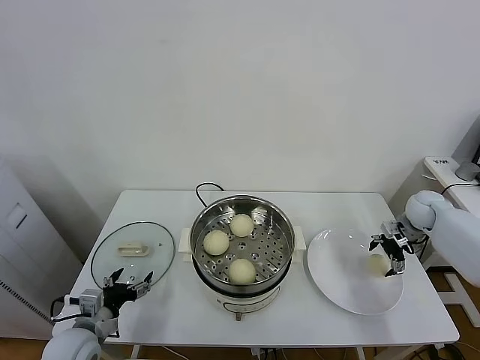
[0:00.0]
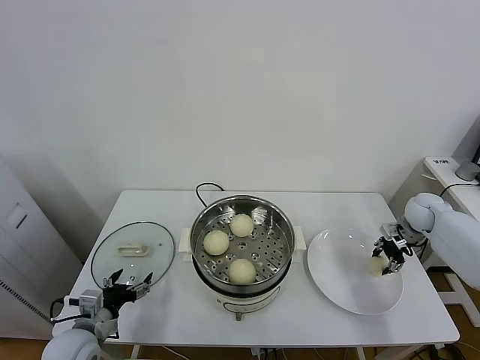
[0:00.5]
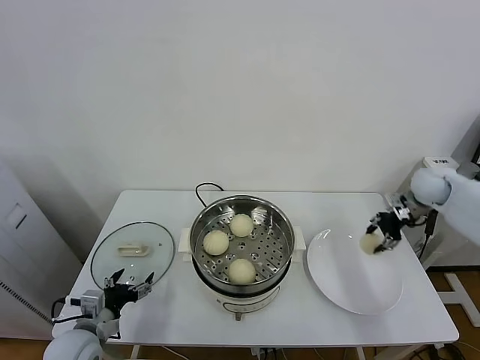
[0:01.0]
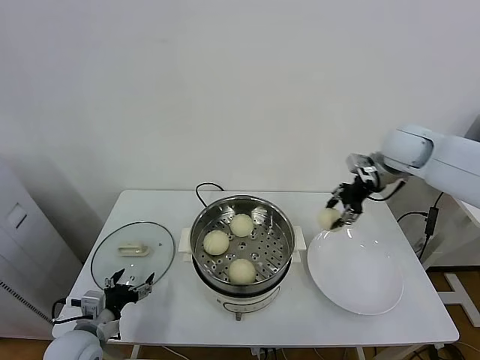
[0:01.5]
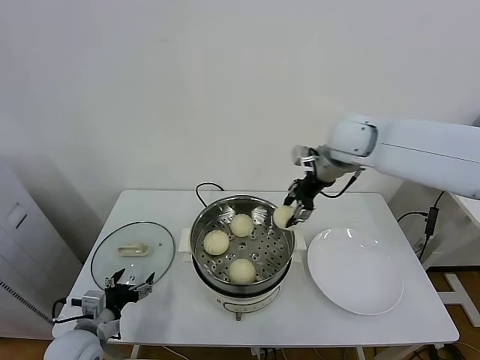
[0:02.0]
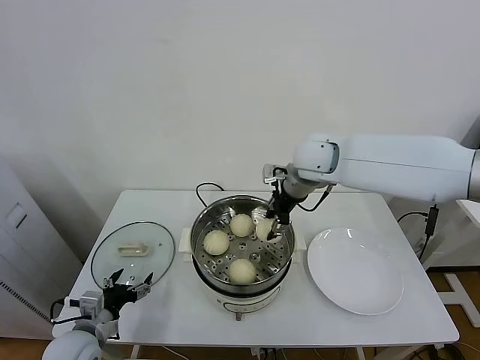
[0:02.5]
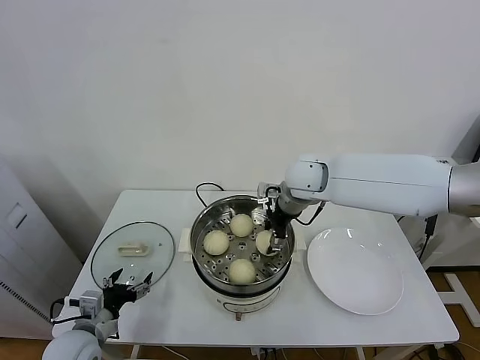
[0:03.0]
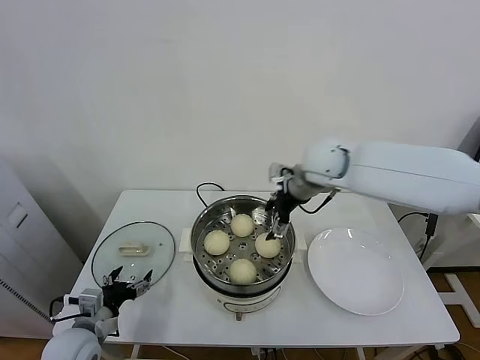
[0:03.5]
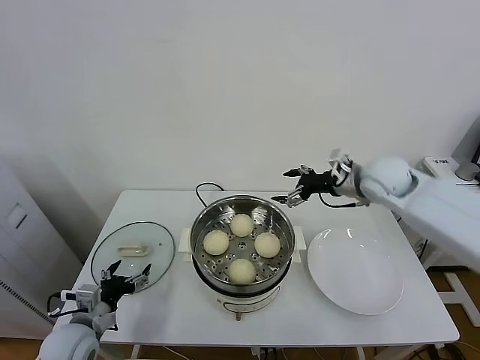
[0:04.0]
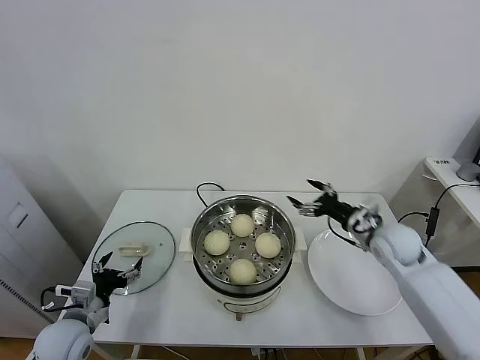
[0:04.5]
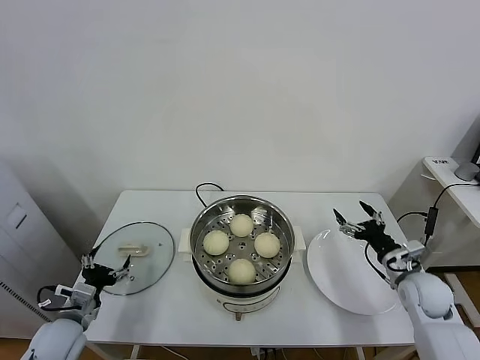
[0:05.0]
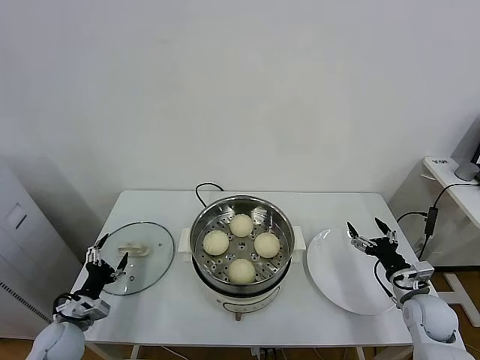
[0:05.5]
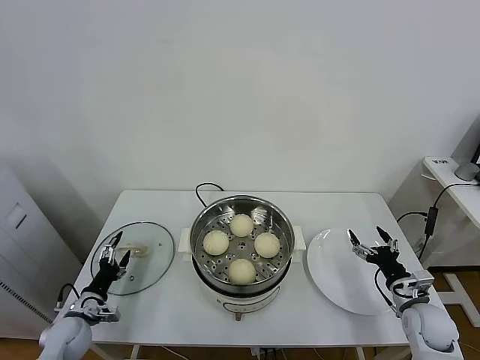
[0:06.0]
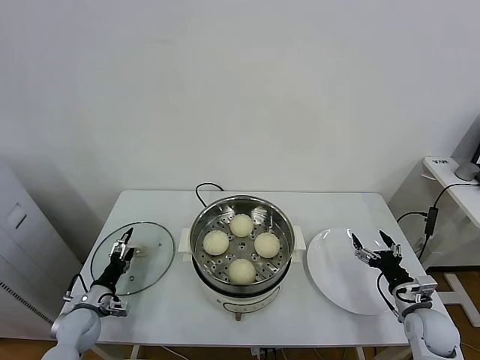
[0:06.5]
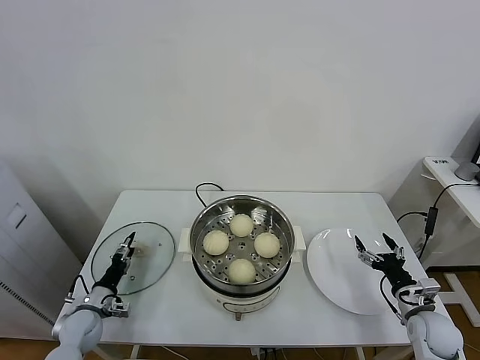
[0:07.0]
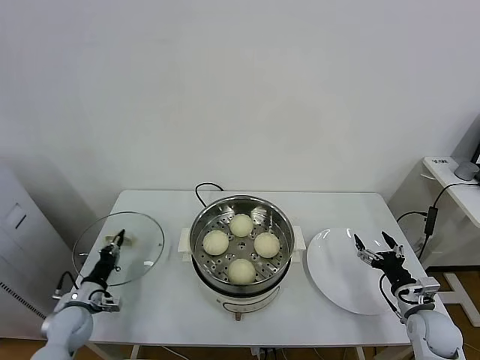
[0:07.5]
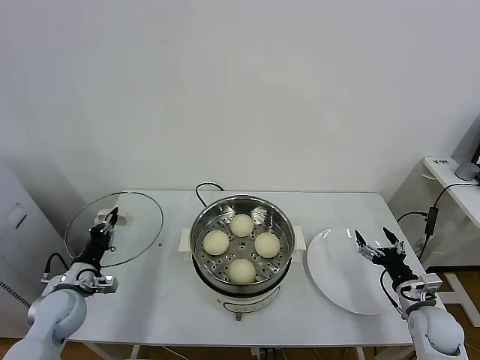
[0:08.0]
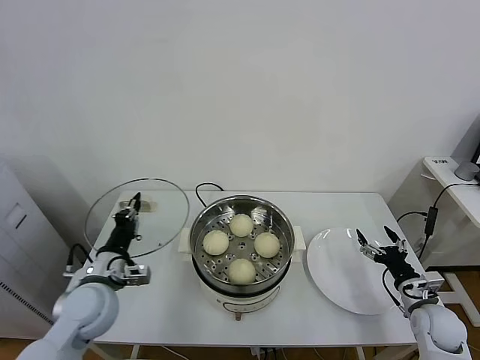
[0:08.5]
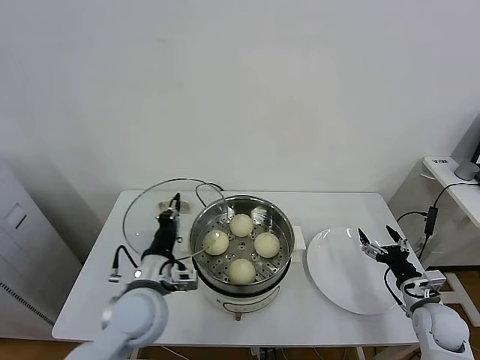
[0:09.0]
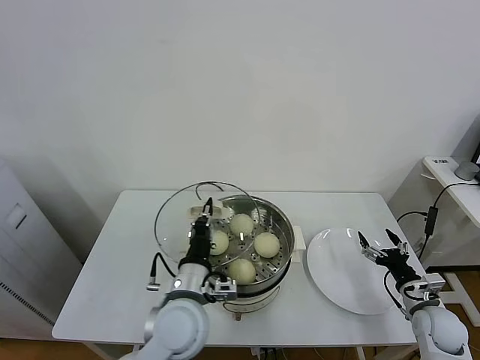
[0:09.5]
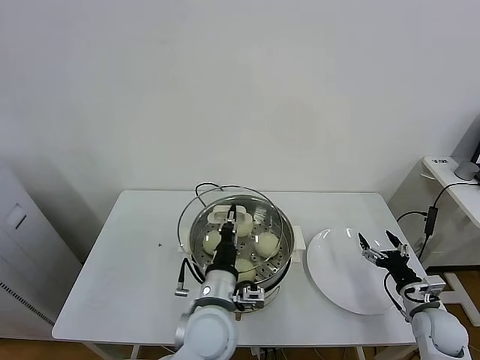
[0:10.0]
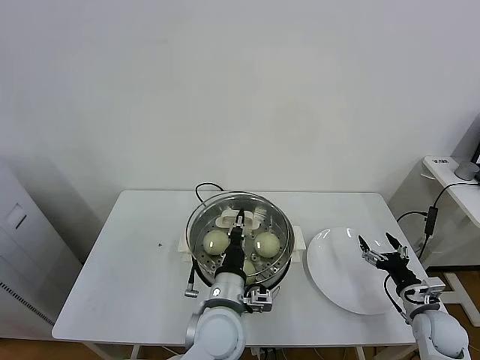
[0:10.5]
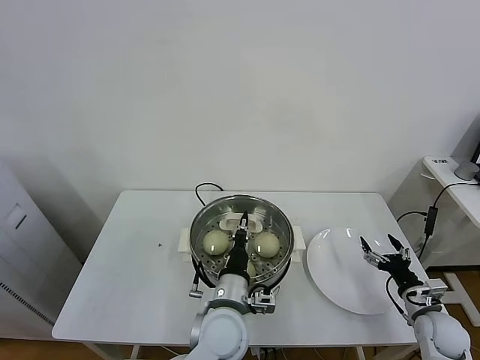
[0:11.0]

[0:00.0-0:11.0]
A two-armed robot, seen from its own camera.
Task of the whole recording: take steamed baozi put them in steamer.
Step, 0:00.5 to 0:03.0: Place the baozi on the steamer with right gripper.
Step, 0:03.5 to 0:07.5: Grasp the pot lid with left gripper.
0:00.0 to 0:02.0: The right gripper goes roughly 35 cm to the left and upward, and closes its fingers.
0:02.0 to 0:03.5: The right gripper opens its fingers.
0:03.5 to 0:05.5: The right gripper goes roughly 40 cm downward, to the right and backward. The left gripper shifts some 10 cm to the left and downward.
0:05.5 to 0:07.5: The left gripper shifts by roughly 5 cm, and closes.
0:07.5 to 0:09.0: The left gripper shifts approximately 30 cm to the right and upward.
0:09.0 to 0:11.0: The left gripper is displaced to the right by some 15 cm.

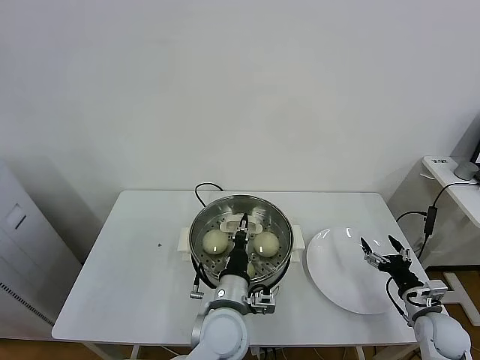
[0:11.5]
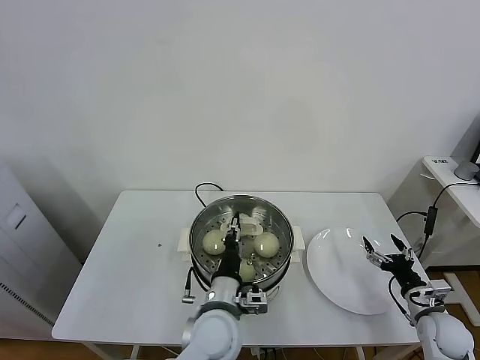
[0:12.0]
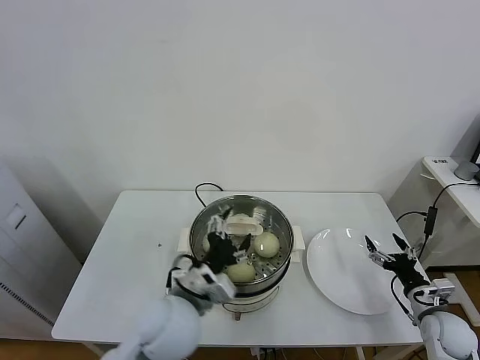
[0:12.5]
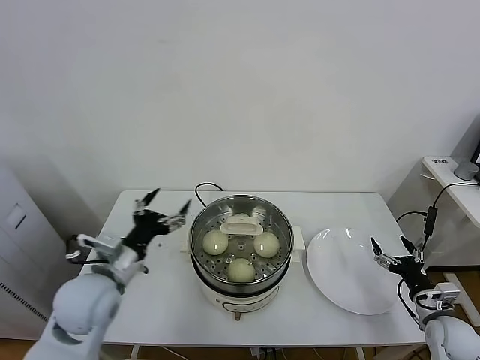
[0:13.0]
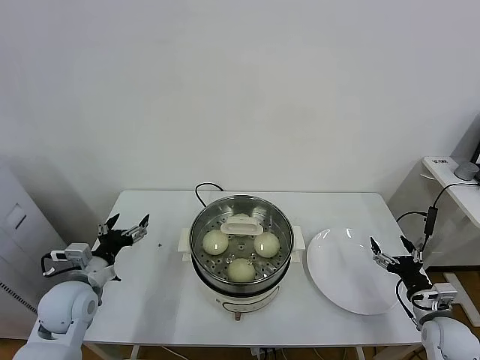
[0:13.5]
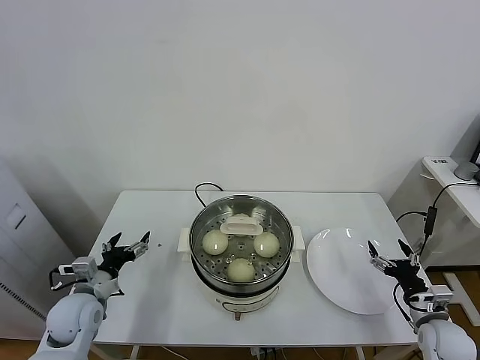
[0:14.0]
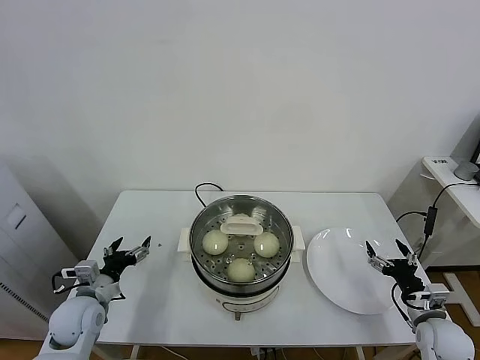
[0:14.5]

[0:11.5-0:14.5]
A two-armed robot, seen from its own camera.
Task of the whole recording: take steamed baozi put them in steamer.
0:11.5 to 0:13.0: The left gripper travels to the left and upward by roughly 25 cm, and opens its fingers.
0:13.0 to 0:14.5: The left gripper heads downward and to the left, covering roughly 15 cm.

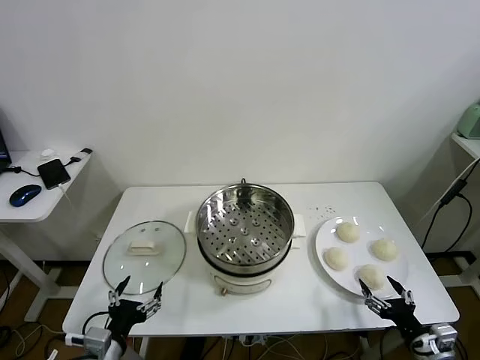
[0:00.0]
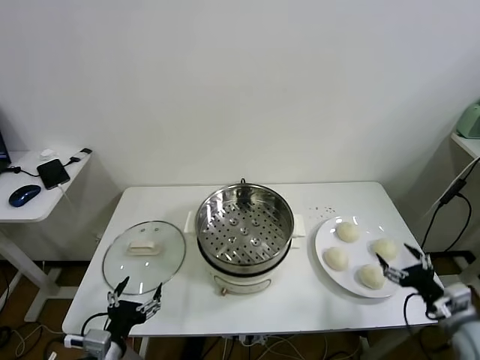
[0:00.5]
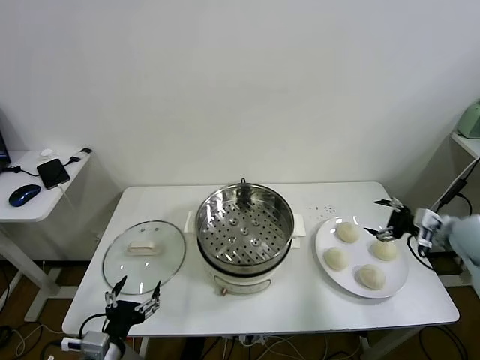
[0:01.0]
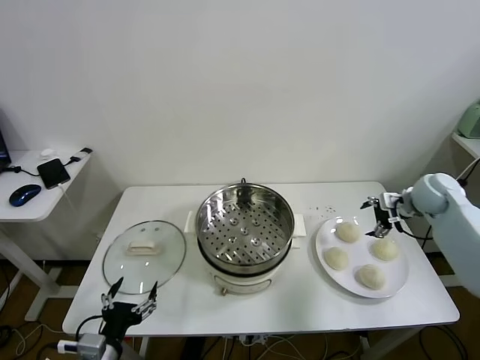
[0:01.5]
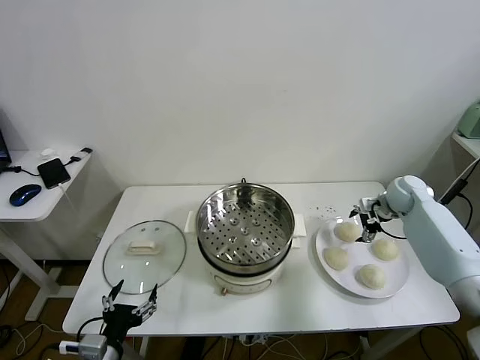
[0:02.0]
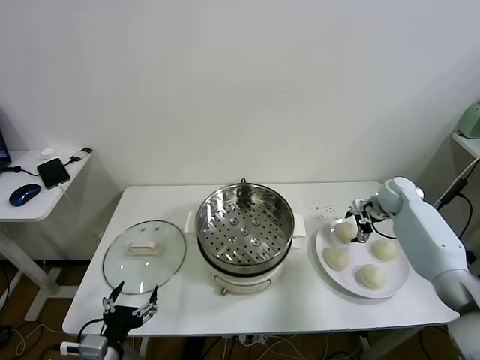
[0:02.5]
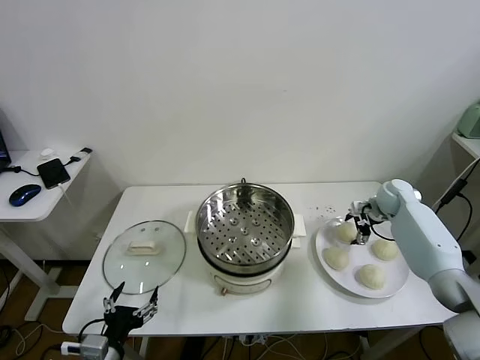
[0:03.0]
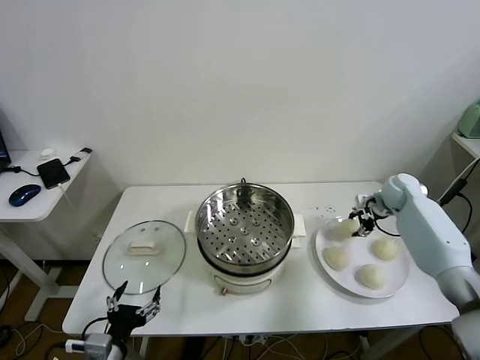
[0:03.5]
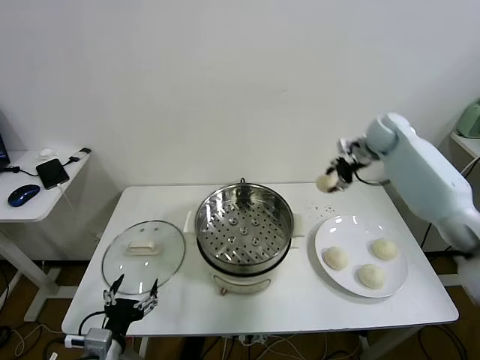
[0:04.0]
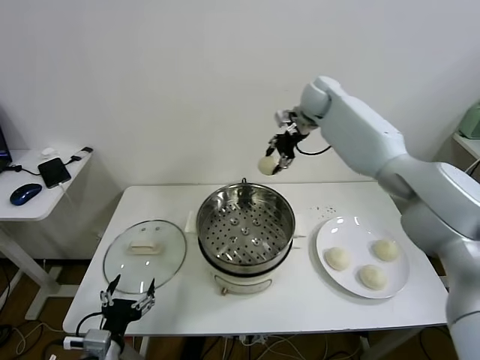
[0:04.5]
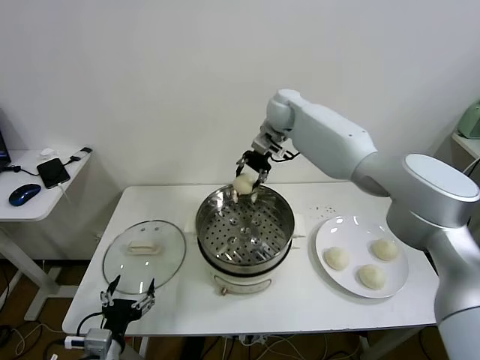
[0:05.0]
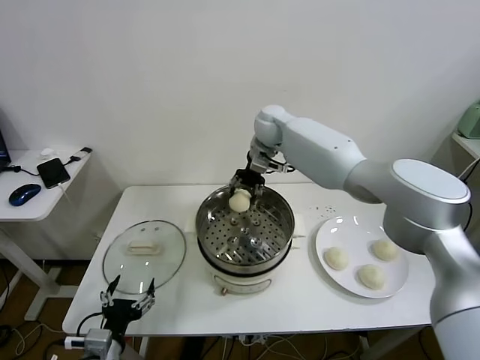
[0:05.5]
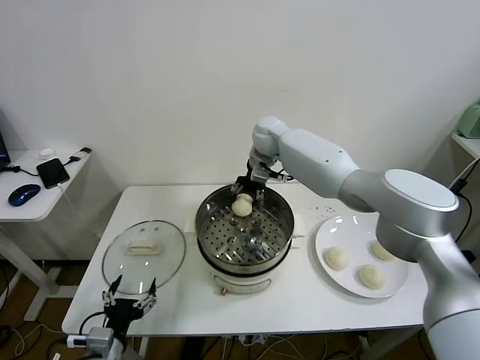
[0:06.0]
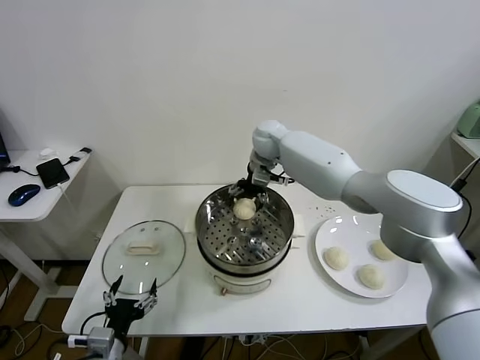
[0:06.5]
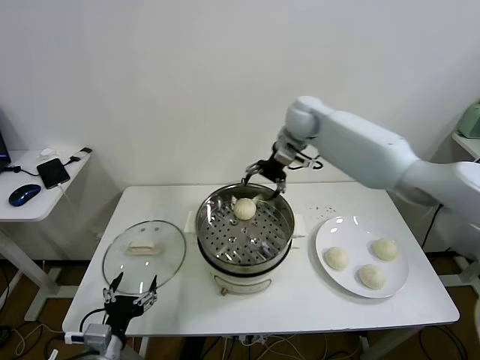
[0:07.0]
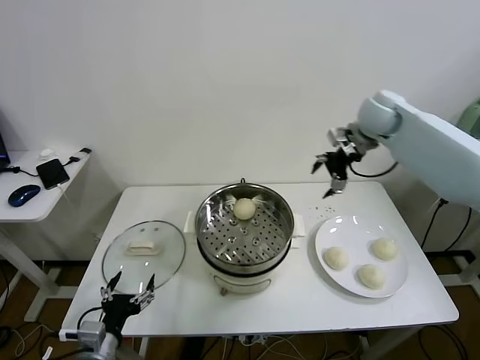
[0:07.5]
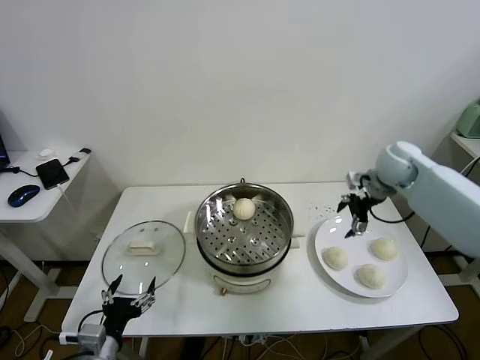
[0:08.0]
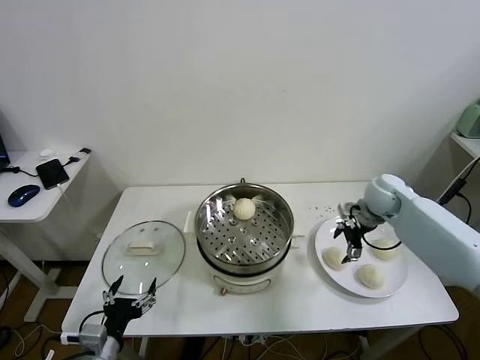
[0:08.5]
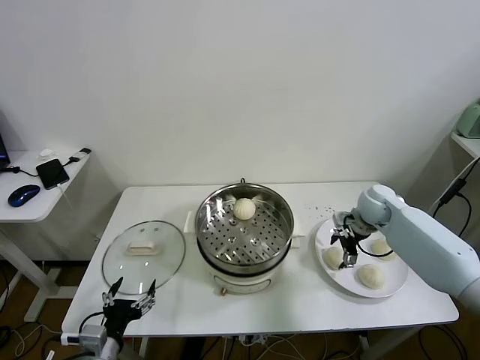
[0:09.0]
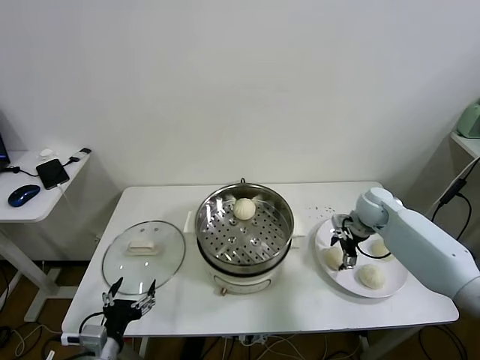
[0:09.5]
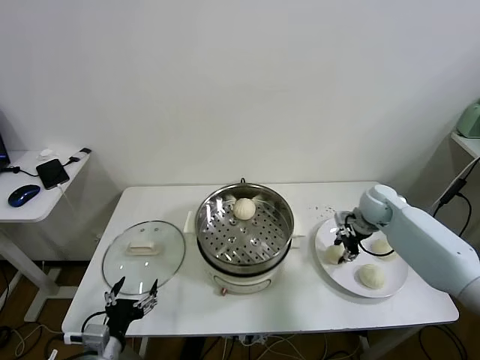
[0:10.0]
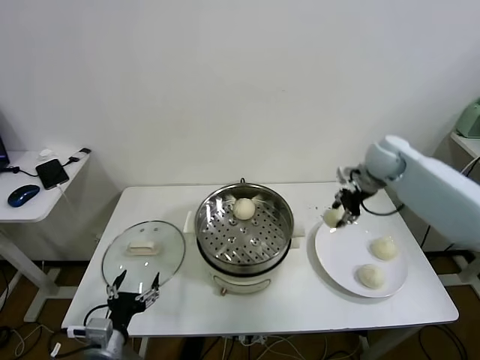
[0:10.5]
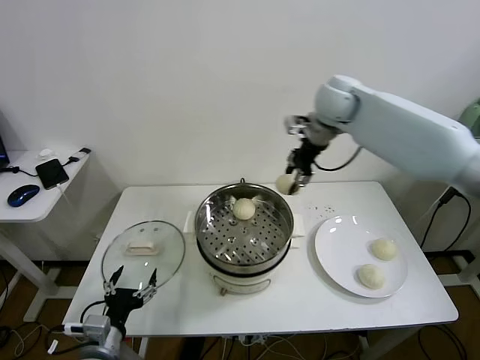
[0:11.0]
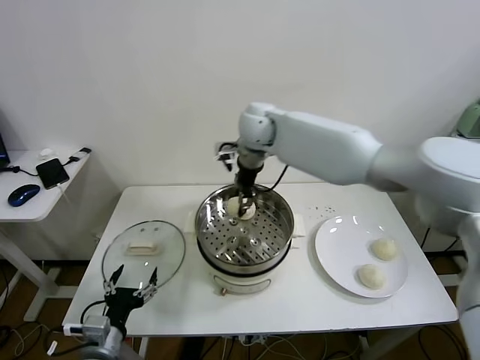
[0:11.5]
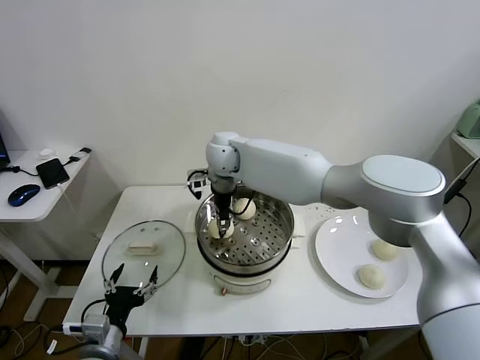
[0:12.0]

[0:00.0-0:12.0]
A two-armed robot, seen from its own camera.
Task of the whole recording: take steamed baozi put them in steamer.
Step, 0:00.0 to 0:03.0: Grasp the baozi in the plate with right gripper.
Step, 0:03.5 to 0:06.5: Place the baozi on the steamer with right gripper.
Step, 0:07.0 to 0:09.5: Grasp the baozi in the plate with right gripper.
0:02.0 to 0:04.0: The right gripper moves upward, to the left and forward, some 25 cm, and closes.
0:04.0 to 0:06.0: The right gripper shifts approximately 25 cm to the left.
0:06.0 to 0:08.0: The right gripper travels to the right by about 30 cm, and opens up.
0:08.0 to 0:10.0: The right gripper moves downward, roughly 10 cm, and closes up.
0:10.0 to 0:12.0: The right gripper shifts some 40 cm to the left.
